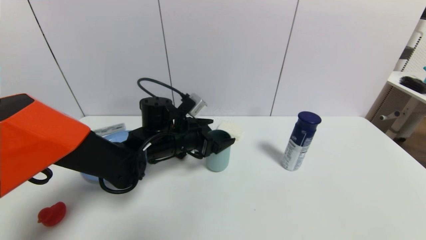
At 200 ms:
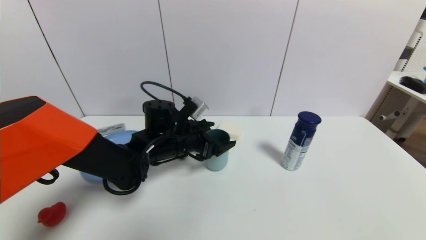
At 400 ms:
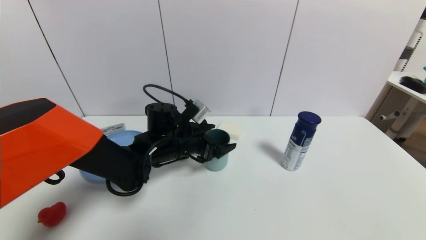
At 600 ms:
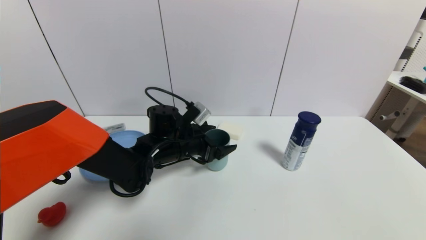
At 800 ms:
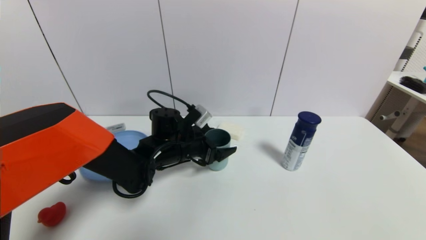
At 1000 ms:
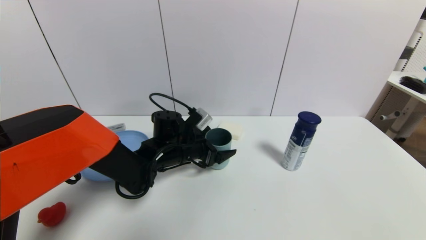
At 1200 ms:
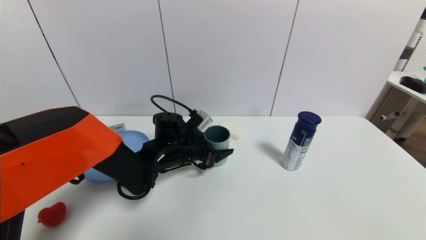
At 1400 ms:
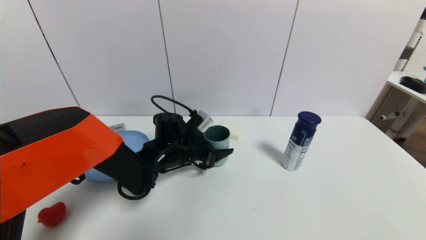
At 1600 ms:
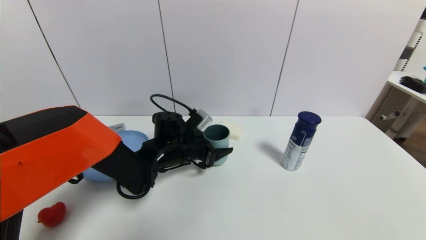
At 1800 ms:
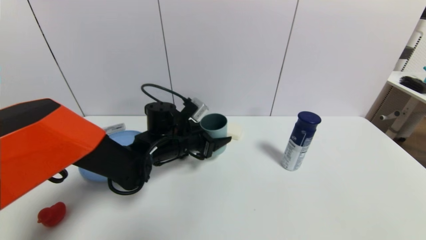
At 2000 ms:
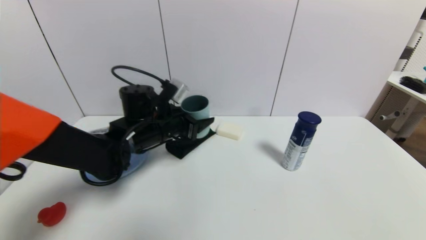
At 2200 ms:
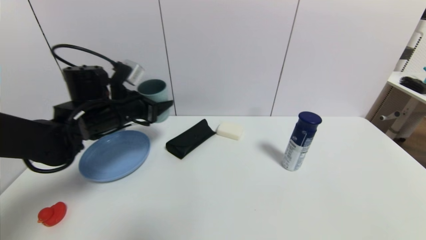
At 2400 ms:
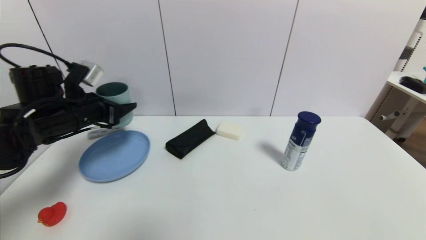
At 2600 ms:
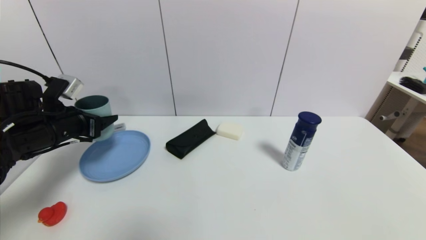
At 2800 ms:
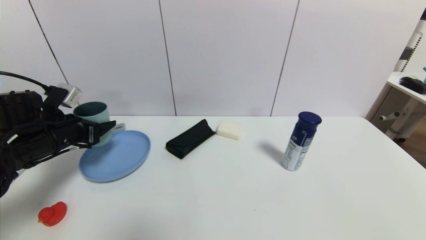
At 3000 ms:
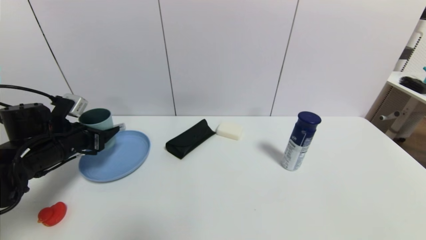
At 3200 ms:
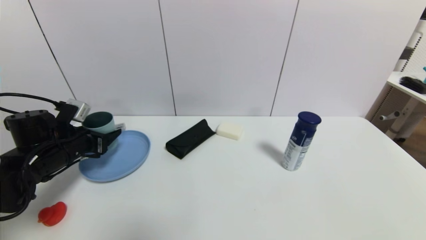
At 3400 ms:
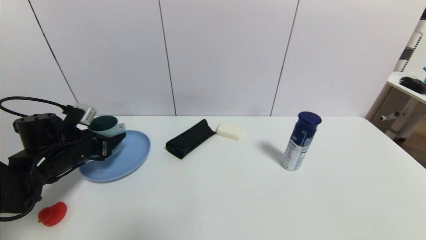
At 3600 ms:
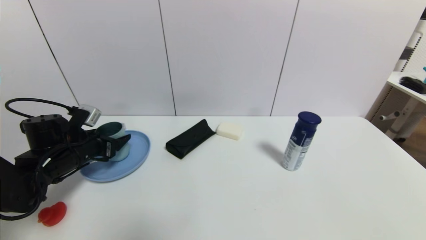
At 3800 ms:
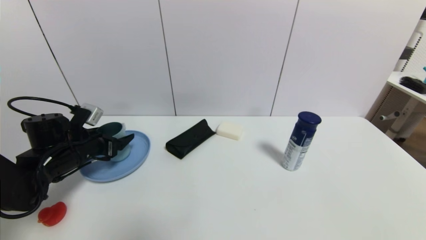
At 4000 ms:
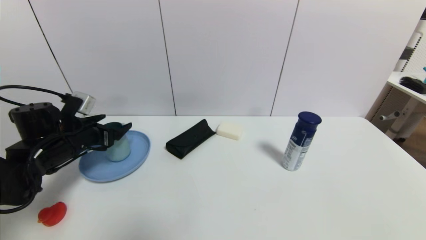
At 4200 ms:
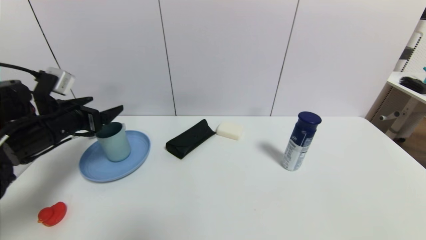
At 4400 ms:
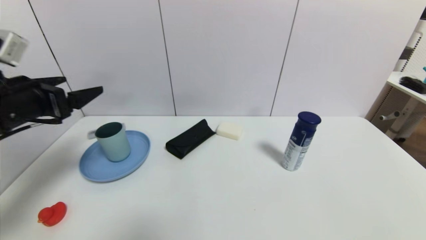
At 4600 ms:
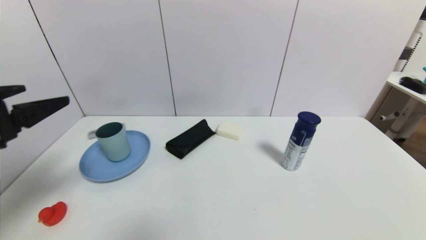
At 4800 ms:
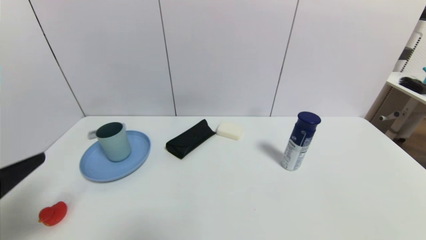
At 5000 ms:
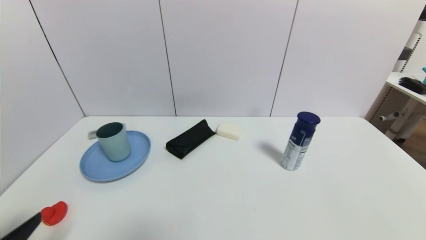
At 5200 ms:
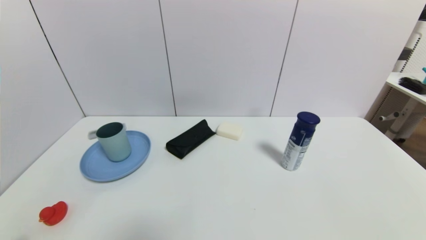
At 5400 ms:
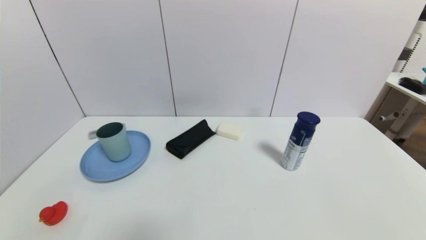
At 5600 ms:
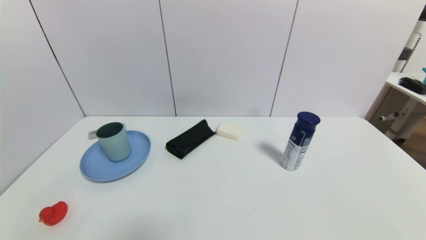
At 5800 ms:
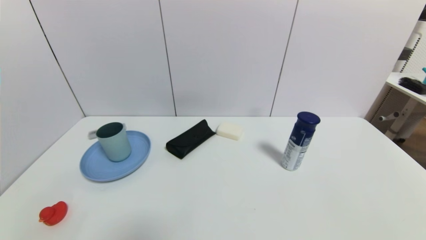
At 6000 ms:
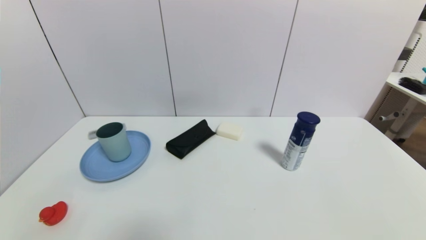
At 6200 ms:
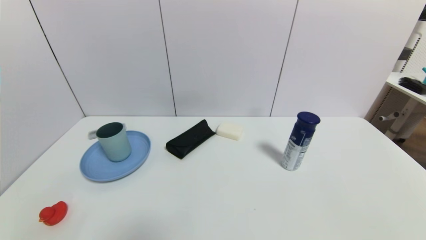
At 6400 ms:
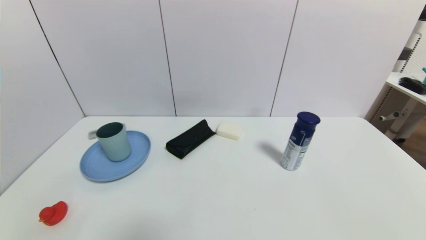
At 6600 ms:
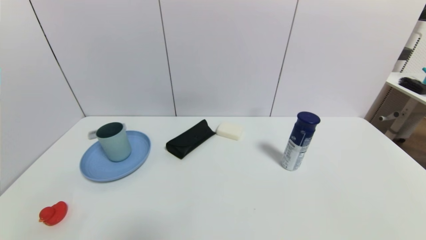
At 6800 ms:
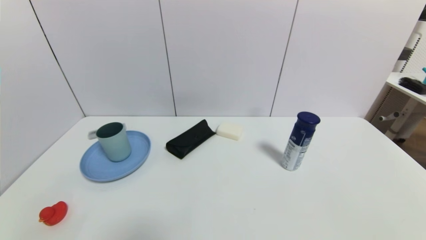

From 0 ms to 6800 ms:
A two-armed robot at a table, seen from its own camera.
Task of the whole recording: use a gripper to pick the target object and place on the blue plate.
Step, from 1600 ms to 4400 ms: Place the blue cup on the blue plate with the left gripper.
From 0 ms to 1400 ms: The left gripper closes its fingers.
From 1400 ms to 2800 ms: The left gripper is displaced to the left by roughly 25 cm.
From 2800 ms to 4000 ms: The left gripper opens.
From 4000 ms to 5400 ms: The left gripper goes some 30 cm backward.
